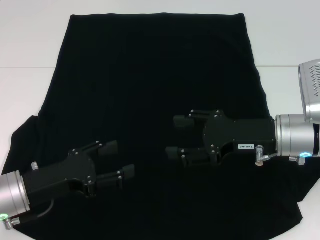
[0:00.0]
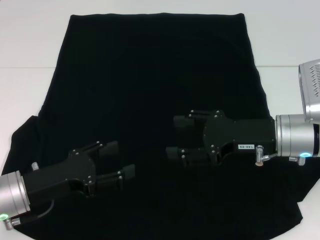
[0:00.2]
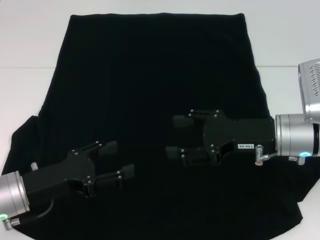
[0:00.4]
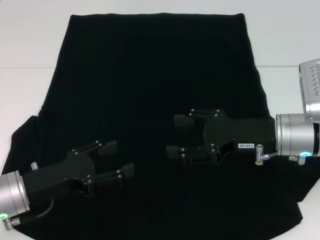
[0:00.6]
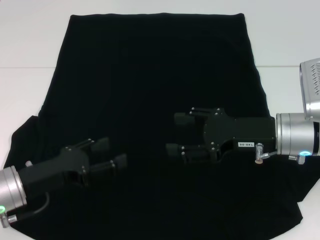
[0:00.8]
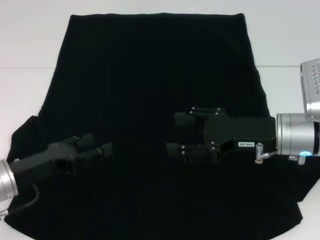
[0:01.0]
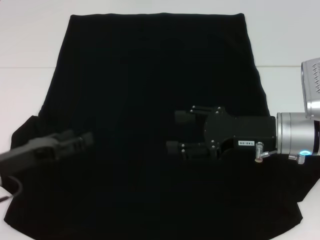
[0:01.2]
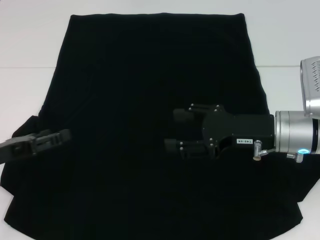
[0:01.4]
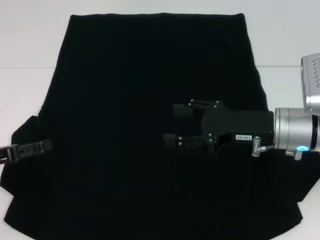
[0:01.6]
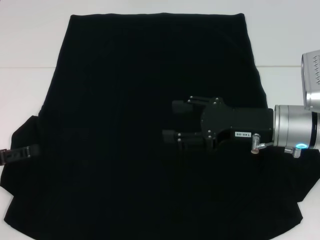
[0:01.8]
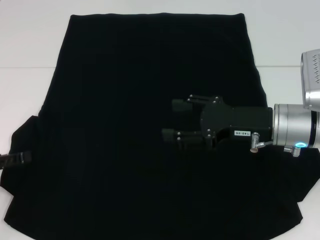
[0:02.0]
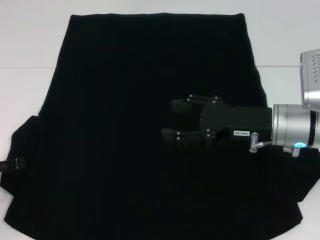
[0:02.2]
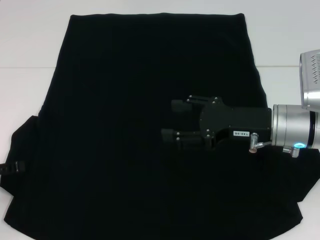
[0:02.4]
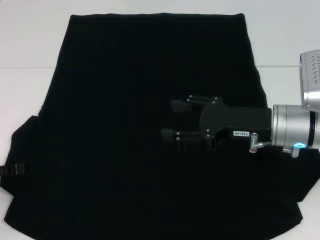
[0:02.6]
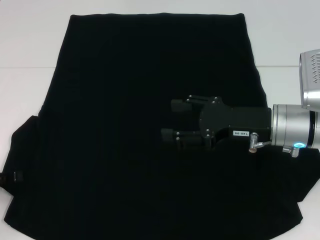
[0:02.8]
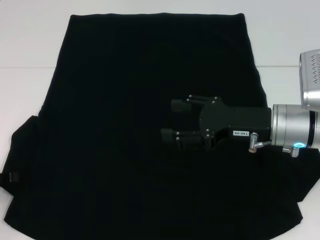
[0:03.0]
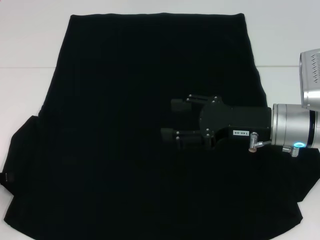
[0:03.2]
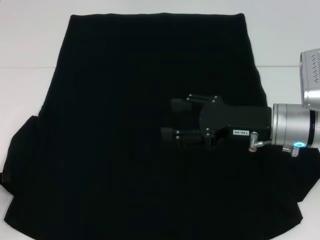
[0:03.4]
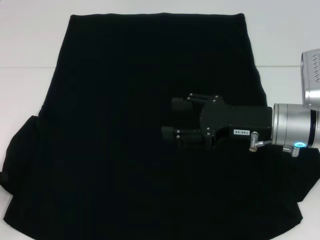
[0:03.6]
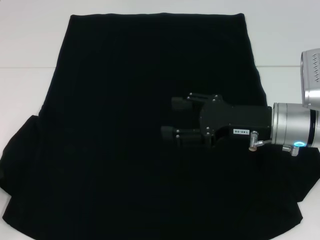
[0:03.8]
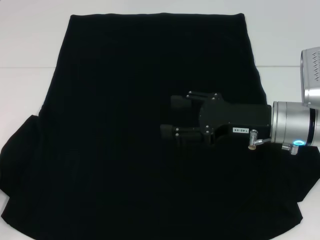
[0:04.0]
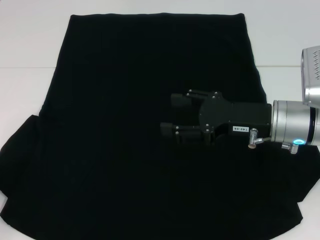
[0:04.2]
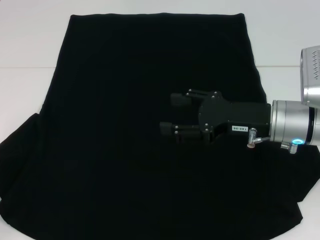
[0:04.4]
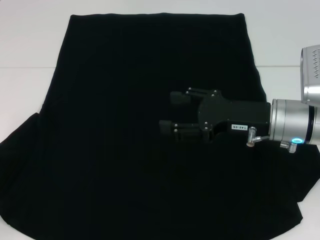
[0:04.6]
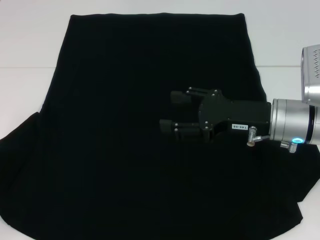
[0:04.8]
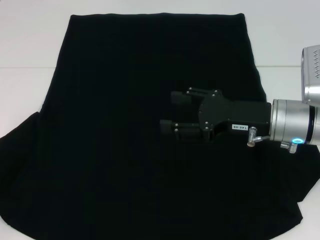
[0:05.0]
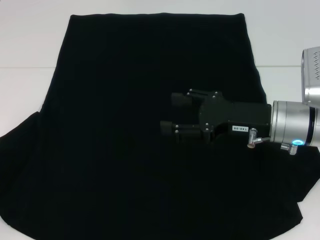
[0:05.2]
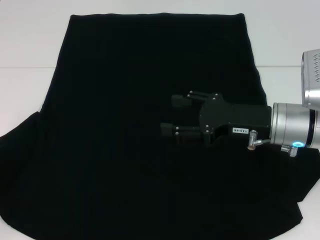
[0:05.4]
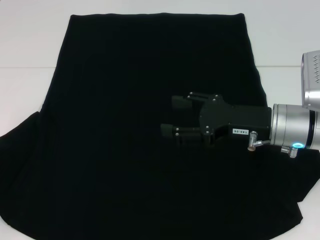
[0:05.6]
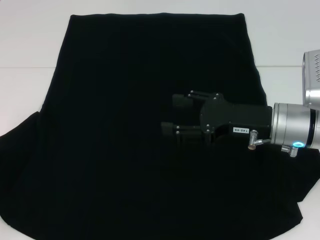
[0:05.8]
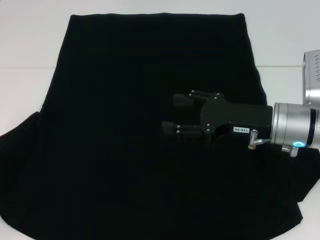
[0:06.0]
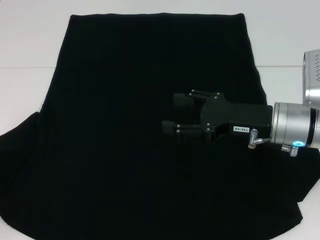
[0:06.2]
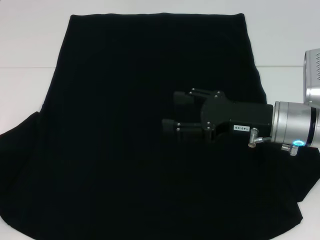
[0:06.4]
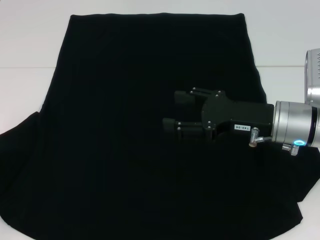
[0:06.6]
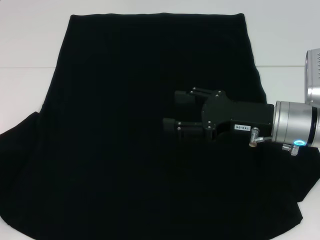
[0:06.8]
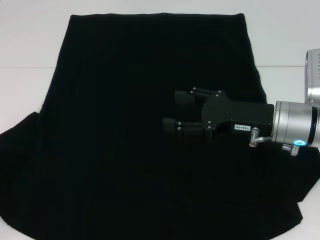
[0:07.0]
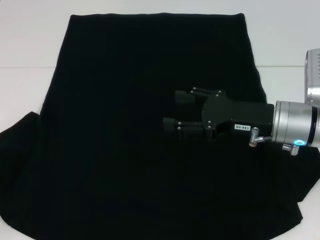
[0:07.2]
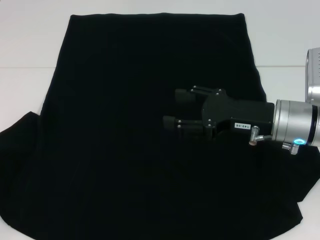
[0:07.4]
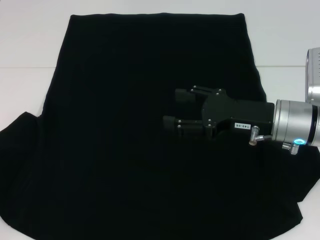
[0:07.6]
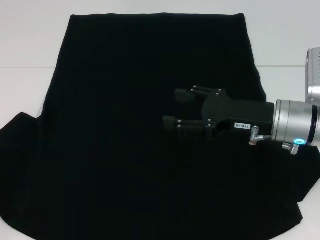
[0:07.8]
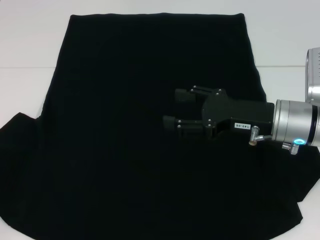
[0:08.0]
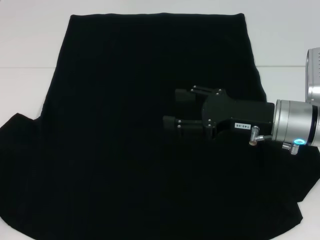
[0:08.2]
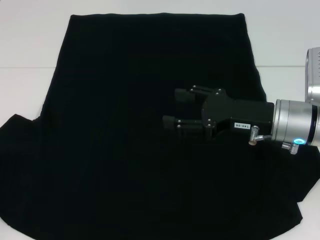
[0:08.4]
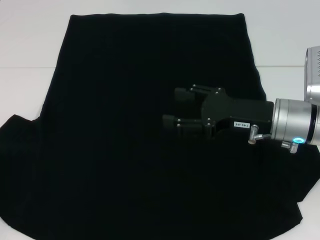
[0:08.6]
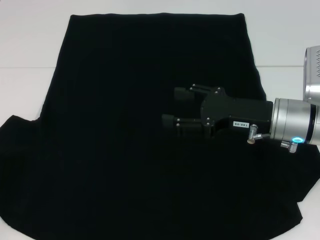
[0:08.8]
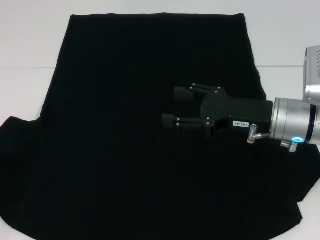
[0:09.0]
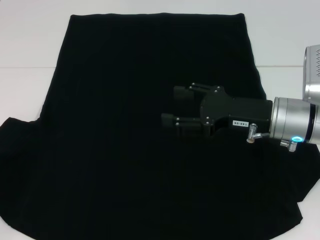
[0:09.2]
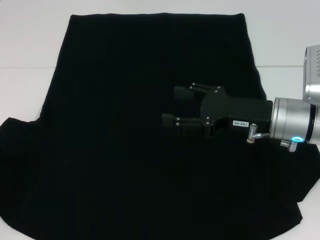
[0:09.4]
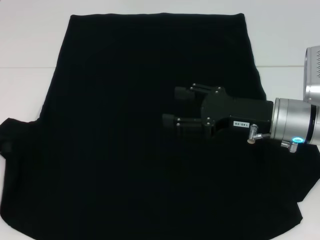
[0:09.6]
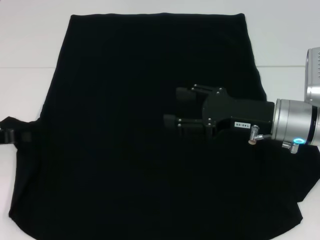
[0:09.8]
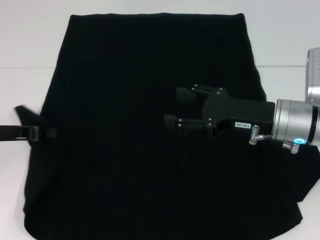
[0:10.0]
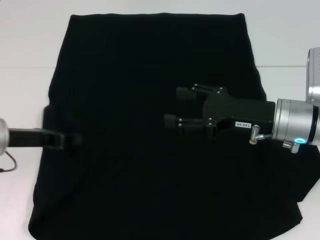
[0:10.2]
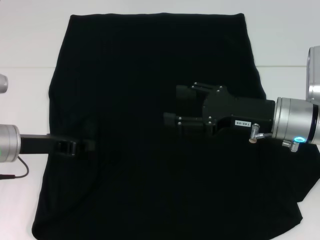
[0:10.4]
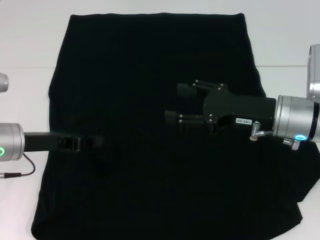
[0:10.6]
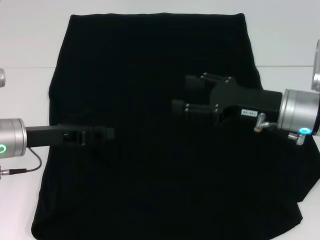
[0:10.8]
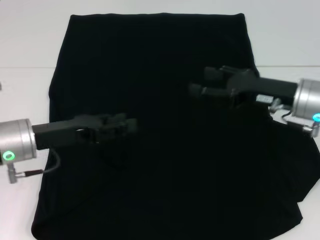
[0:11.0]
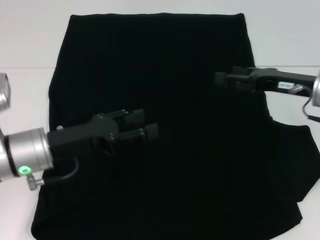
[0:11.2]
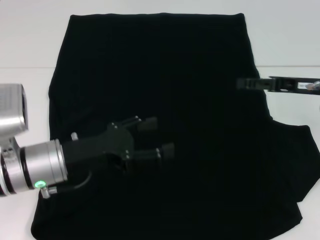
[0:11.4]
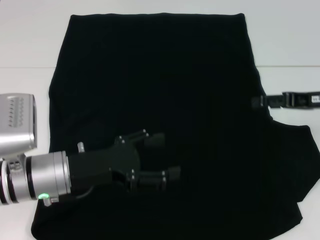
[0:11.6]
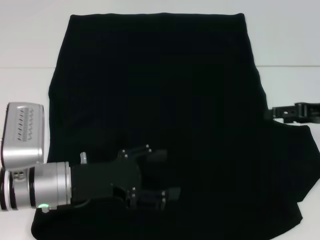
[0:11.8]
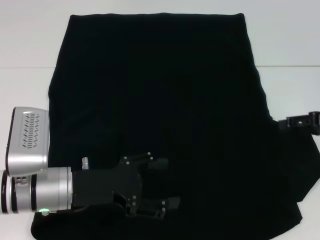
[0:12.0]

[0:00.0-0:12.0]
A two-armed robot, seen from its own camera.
Step, 0:00.0 to 0:11.2: Fold the bottom left sleeve with your left hand.
0:00.0 to 0:01.6: The left gripper goes about 10 cm to the left.
0:01.6 to 0:03.0: There are only small adjustments of the grippers.
0:03.0 to 0:04.4: The left gripper closes.
0:04.4 to 0:06.0: The grippers move only a little.
0:06.0 to 0:07.6: Both grippers stay put.
0:07.6 to 0:09.0: The grippers make only small movements.
0:09.0 to 0:10.4: The left gripper goes approximately 15 cm to the right and forward.
0:10.4 to 0:12.0: The left gripper heads to the right and backward, covering roughly 10 cm, and opens up, while the right gripper heads to the right, covering approximately 15 cm.

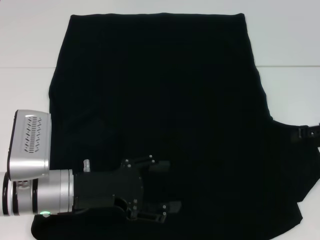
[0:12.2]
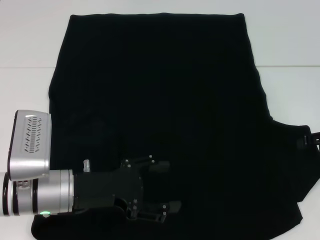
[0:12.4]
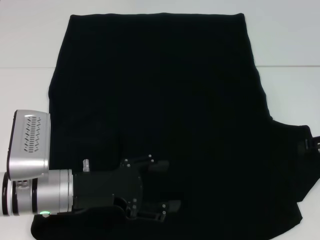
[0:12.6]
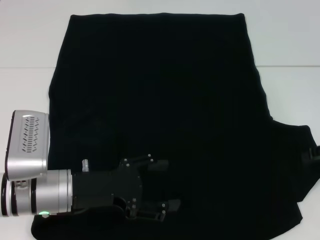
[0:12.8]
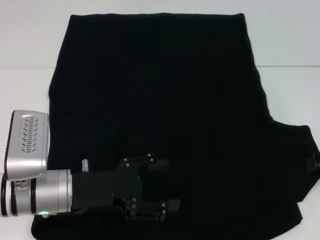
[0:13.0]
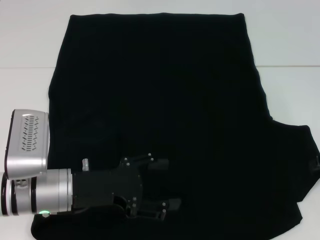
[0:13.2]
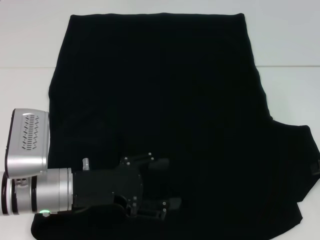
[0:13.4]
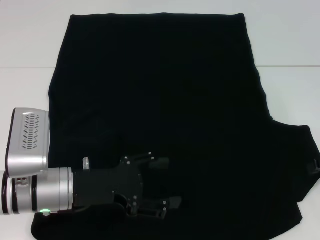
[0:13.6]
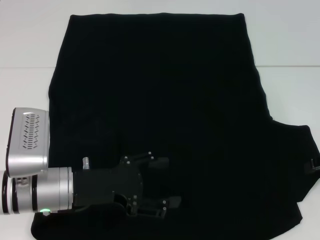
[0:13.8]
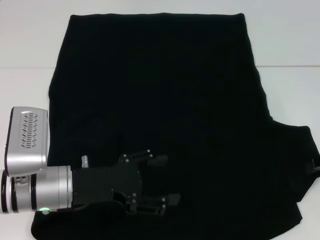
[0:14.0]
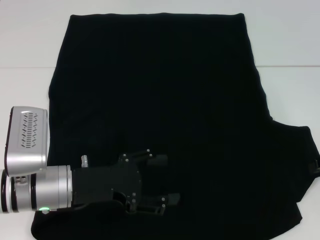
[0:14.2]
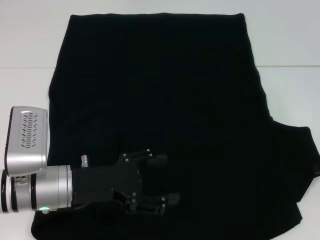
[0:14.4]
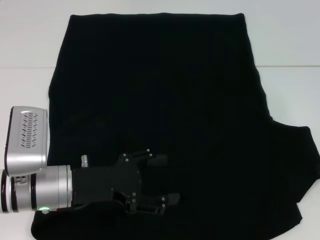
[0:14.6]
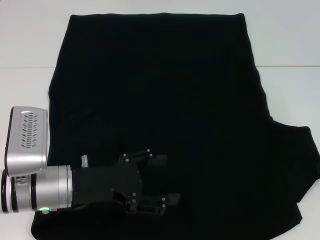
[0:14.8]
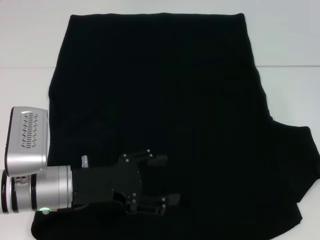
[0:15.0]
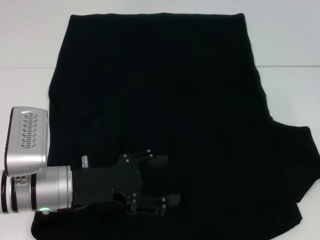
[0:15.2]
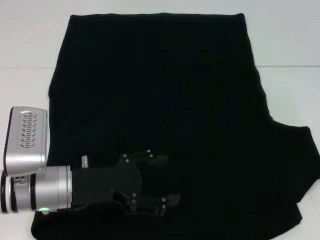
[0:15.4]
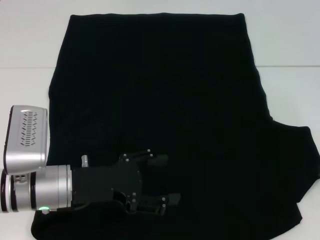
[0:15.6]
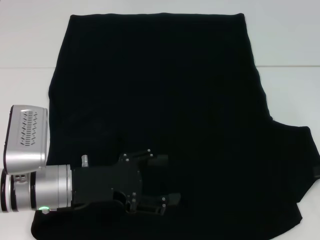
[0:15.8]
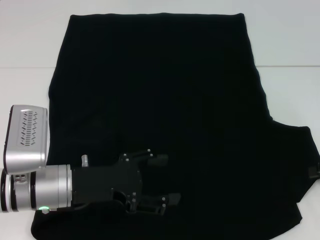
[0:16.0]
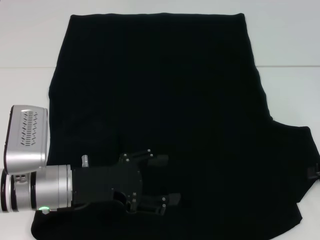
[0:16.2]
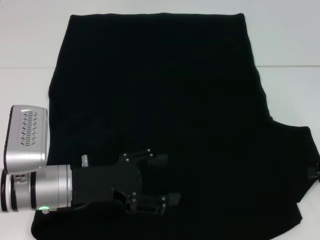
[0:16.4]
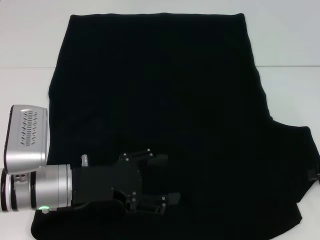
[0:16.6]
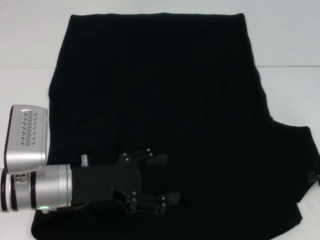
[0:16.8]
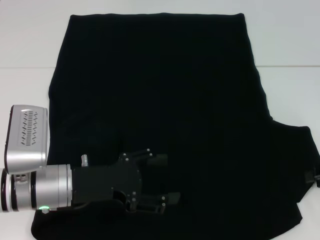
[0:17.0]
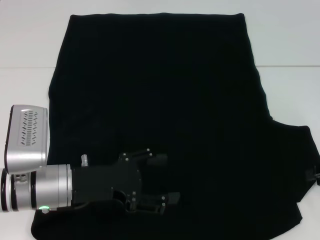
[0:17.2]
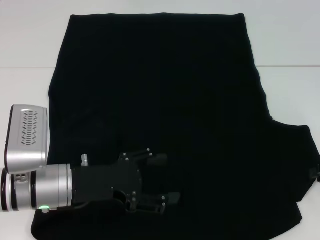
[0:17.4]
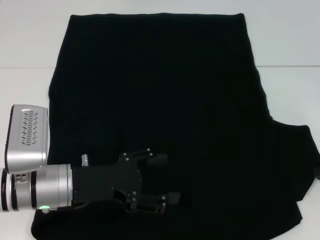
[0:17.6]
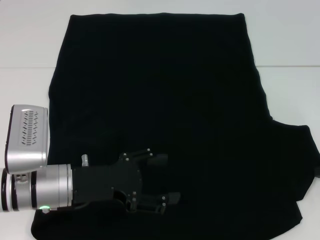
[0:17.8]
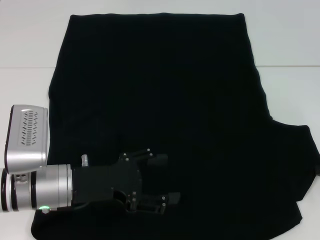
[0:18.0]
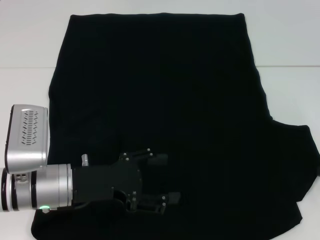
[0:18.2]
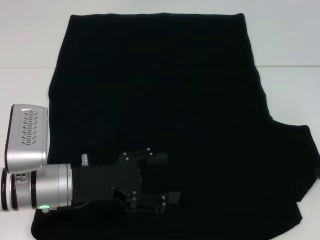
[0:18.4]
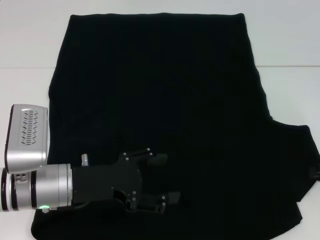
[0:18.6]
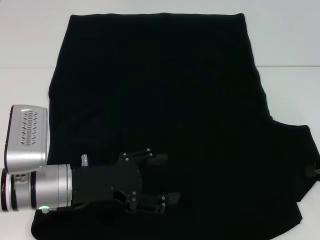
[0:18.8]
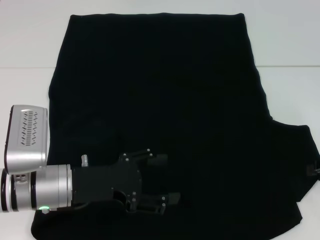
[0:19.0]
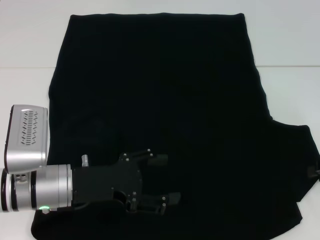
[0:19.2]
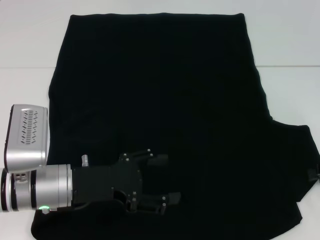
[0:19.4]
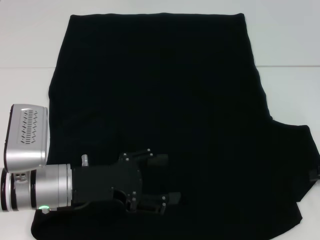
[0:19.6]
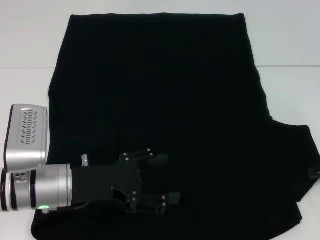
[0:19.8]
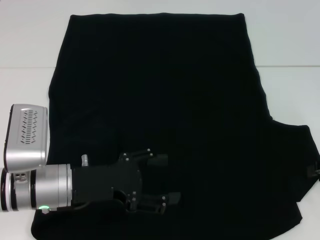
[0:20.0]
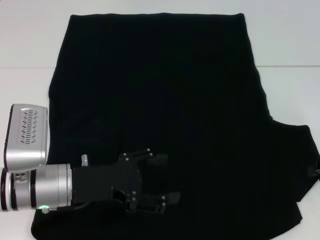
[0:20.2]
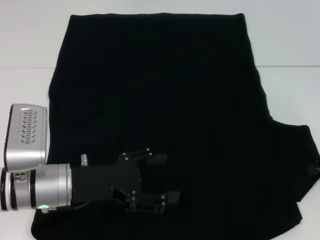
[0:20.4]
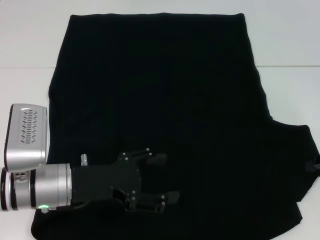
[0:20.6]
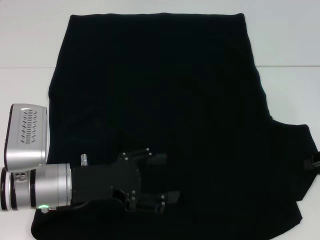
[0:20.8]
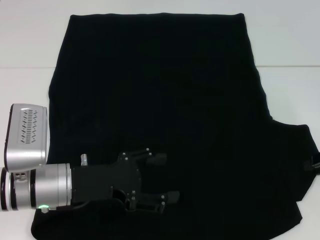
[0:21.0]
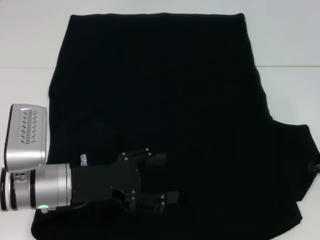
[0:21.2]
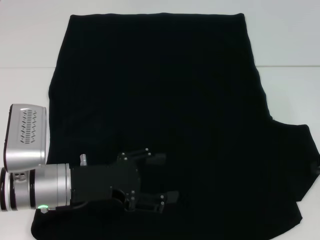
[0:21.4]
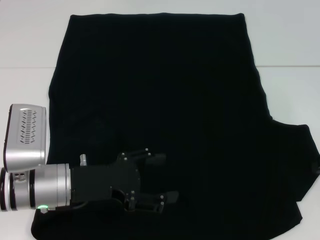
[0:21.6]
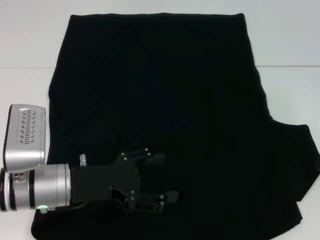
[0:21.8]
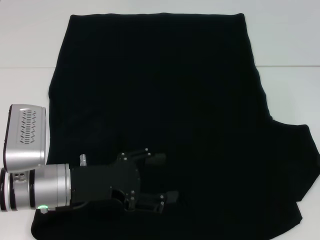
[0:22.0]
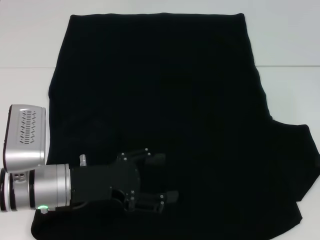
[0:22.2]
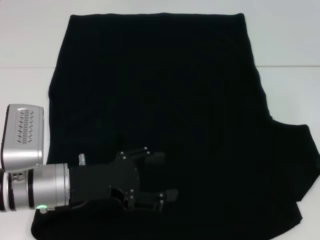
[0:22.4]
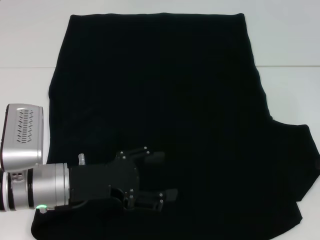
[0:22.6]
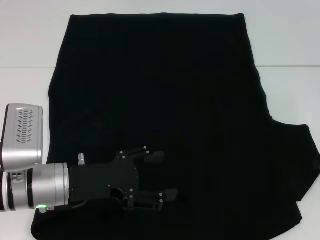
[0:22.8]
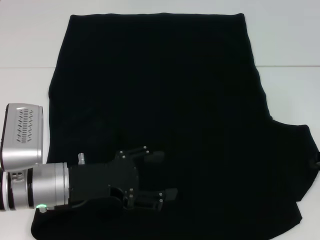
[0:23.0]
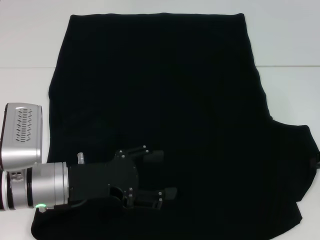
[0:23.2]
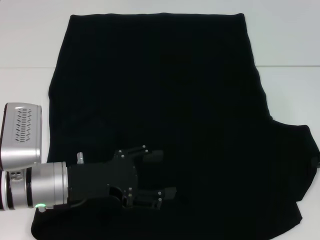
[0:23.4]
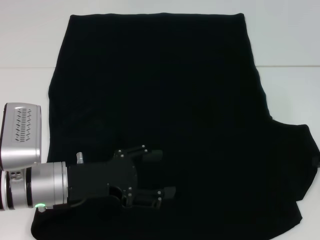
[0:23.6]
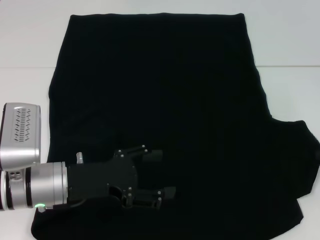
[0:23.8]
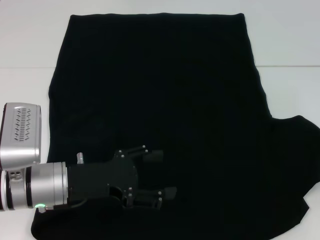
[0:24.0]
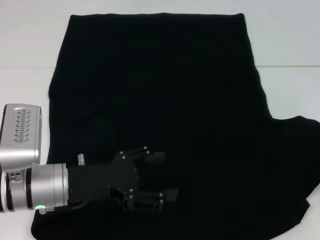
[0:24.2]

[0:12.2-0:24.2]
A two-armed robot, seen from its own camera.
0:12.2 to 0:13.8: The grippers move only a little.
0:19.8 to 0:24.2: The grippers make only small movements.
